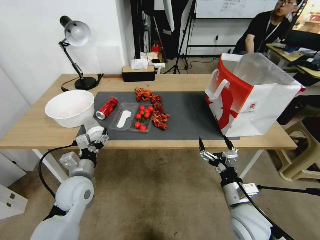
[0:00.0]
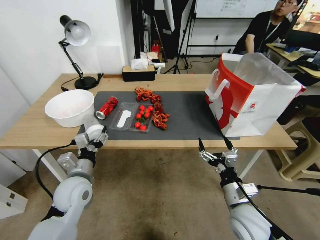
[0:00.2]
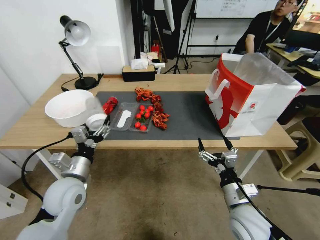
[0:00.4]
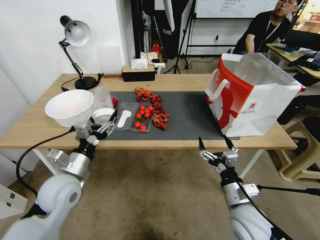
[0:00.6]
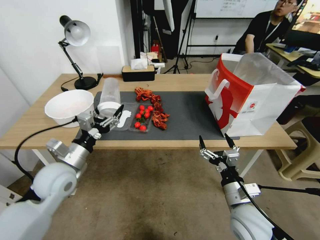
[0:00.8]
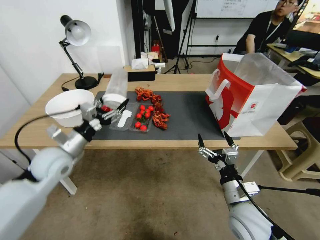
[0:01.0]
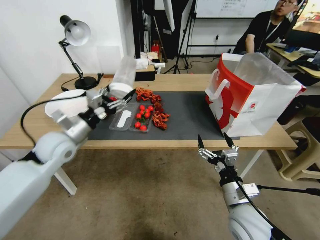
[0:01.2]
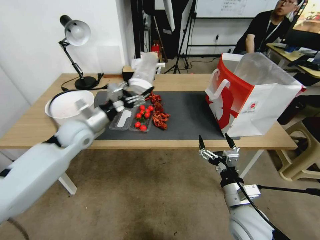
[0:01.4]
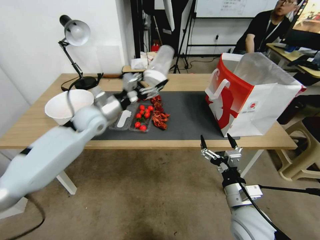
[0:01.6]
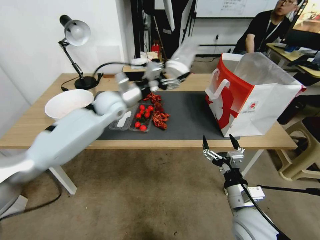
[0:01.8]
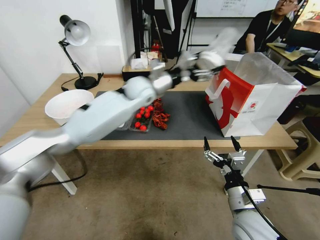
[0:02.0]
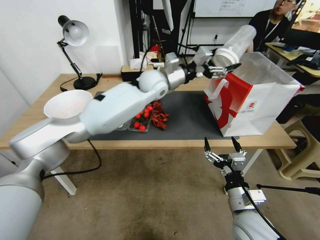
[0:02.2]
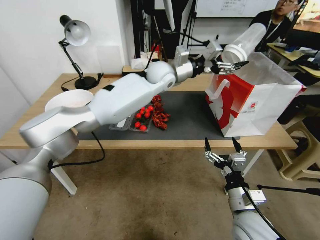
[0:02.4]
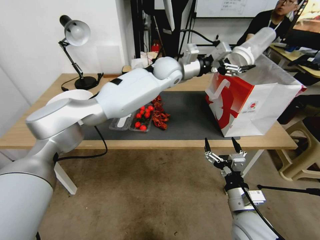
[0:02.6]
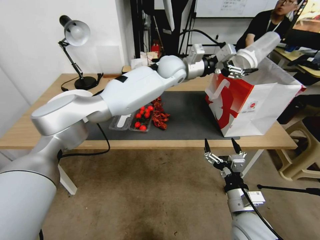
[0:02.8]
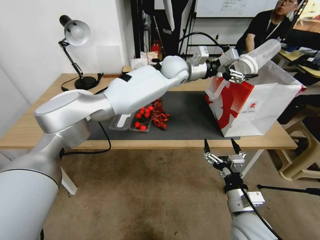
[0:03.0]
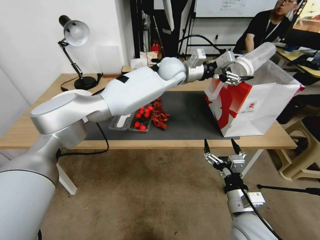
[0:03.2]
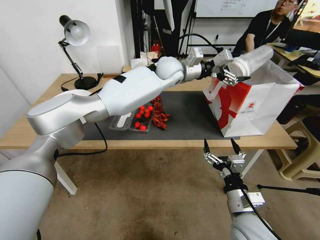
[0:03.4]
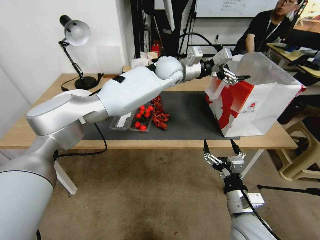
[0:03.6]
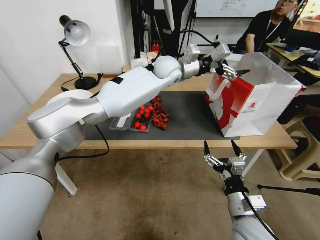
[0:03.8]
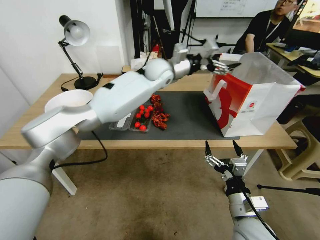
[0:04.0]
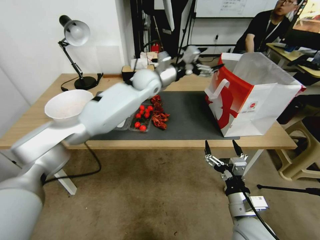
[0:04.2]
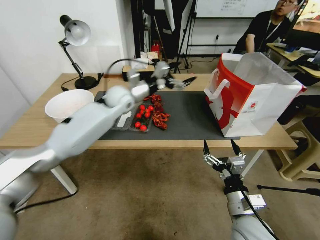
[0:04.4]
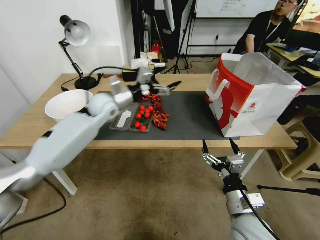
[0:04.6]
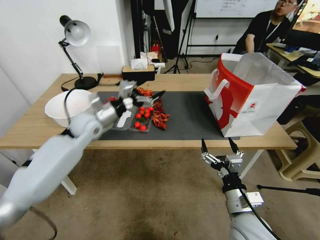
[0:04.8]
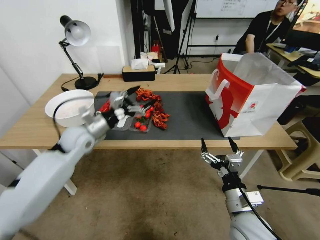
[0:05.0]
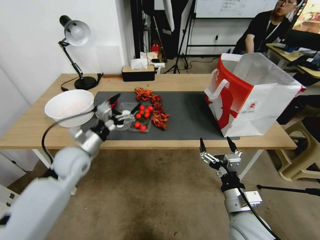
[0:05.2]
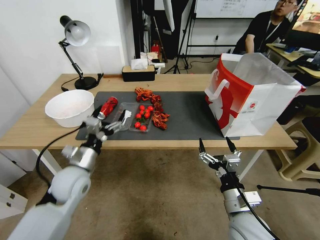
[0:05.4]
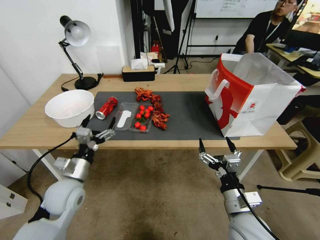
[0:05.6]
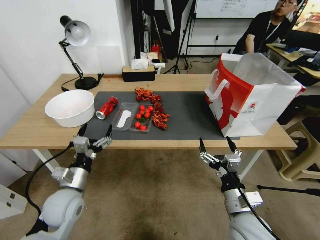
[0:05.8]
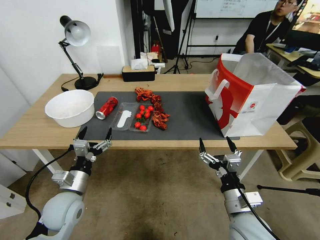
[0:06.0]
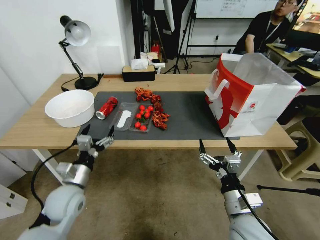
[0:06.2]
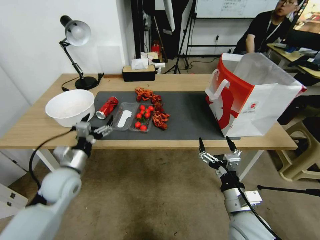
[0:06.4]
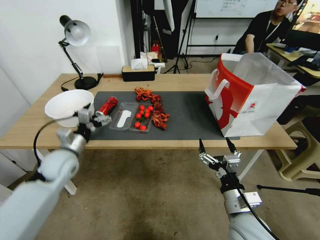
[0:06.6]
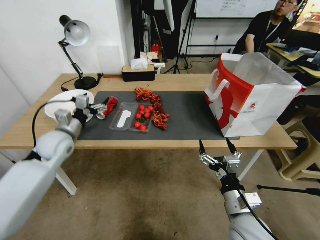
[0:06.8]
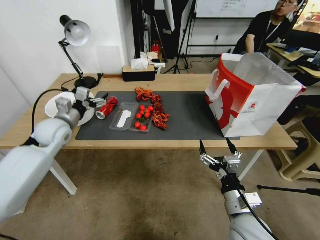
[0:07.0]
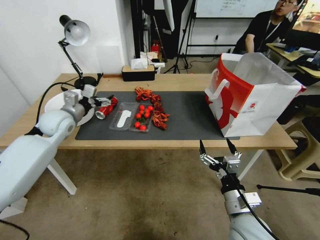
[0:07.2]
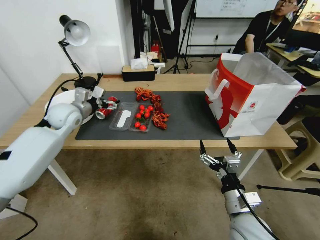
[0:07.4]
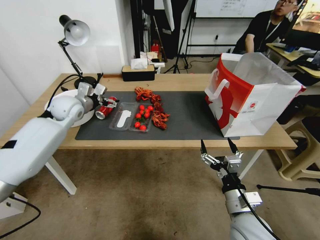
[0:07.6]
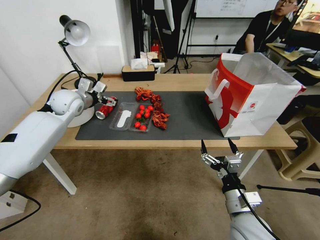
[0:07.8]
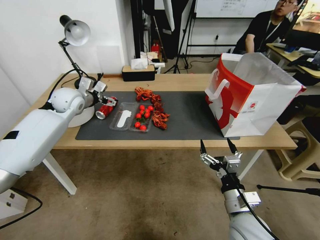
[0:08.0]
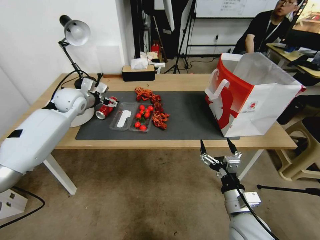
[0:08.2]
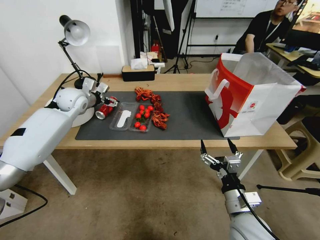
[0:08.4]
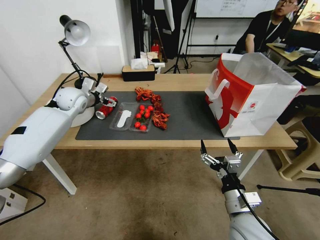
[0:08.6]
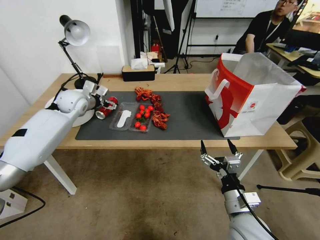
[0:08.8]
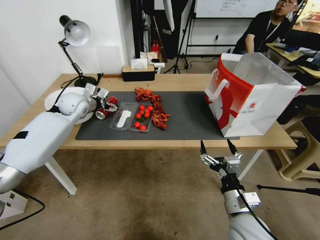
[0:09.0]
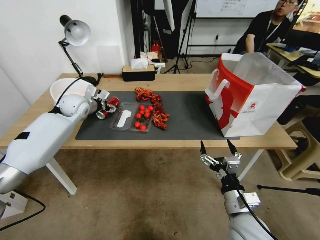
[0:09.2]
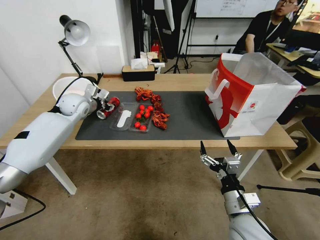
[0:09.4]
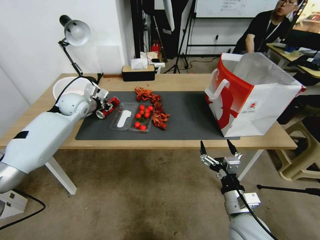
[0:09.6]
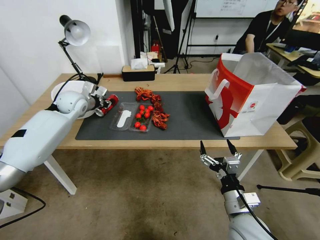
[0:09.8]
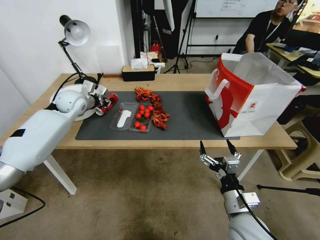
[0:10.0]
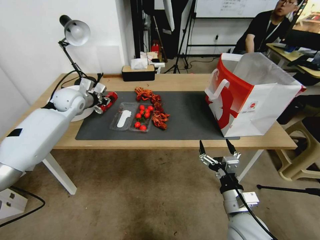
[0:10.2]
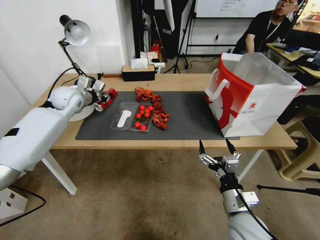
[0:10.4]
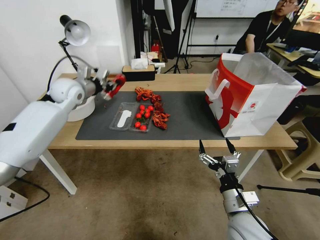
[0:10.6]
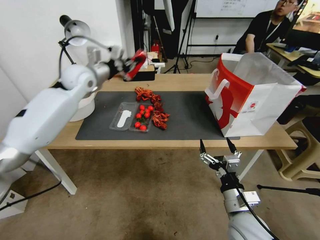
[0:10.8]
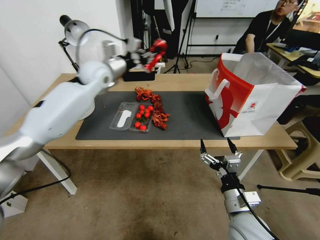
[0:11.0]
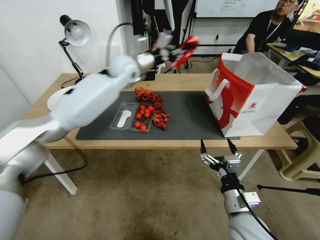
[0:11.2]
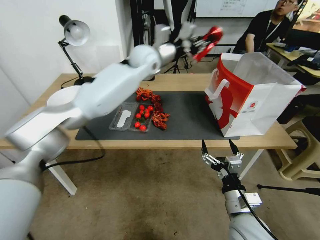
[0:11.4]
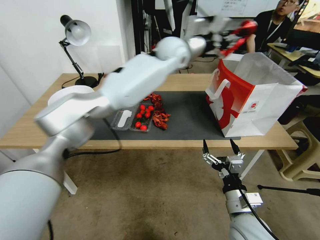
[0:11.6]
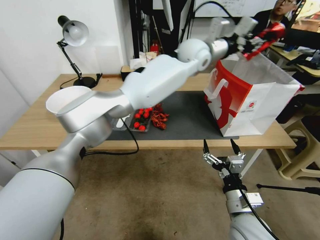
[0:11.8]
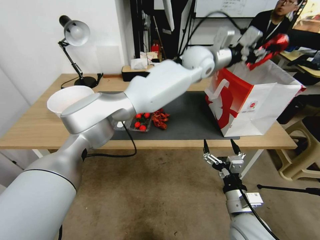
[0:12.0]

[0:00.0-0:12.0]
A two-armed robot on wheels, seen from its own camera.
0:00.0 to 0:01.6: The left gripper heads forward and upward, covering some 20 cm.
0:01.6 to 0:03.0: The left gripper is displaced to the right and forward by about 35 cm.
0:03.0 to 0:04.4: The left gripper shifts about 20 cm to the left and downward.
0:04.4 to 0:06.0: The left gripper is displaced backward, downward and to the left by roughly 40 cm.
0:06.0 to 0:07.6: The left gripper moves forward and upward, about 30 cm.
0:07.6 to 0:09.0: The grippers stay close to where they were, moving slightly.
0:09.0 to 0:10.4: The left gripper closes.
0:10.4 to 0:12.0: The left gripper is displaced to the right and upward by about 40 cm.

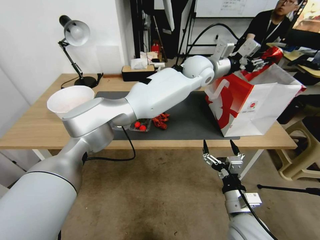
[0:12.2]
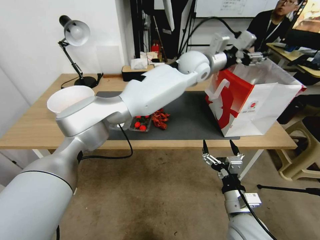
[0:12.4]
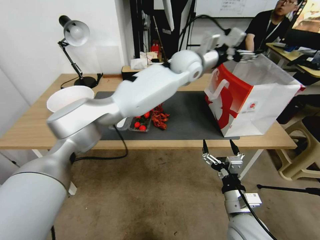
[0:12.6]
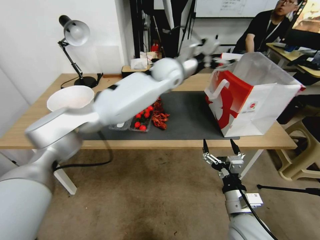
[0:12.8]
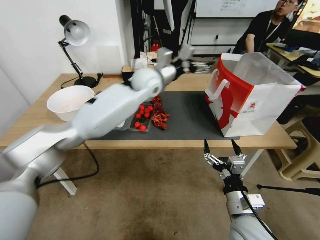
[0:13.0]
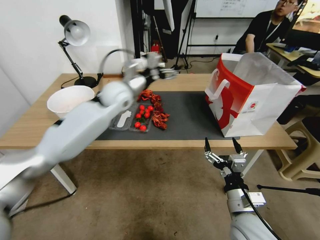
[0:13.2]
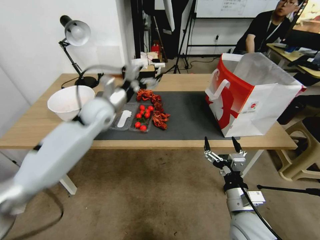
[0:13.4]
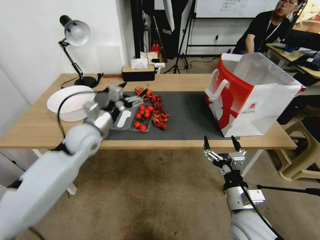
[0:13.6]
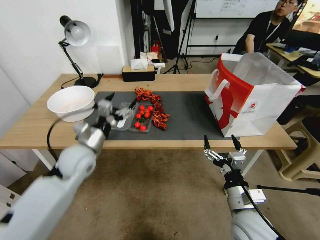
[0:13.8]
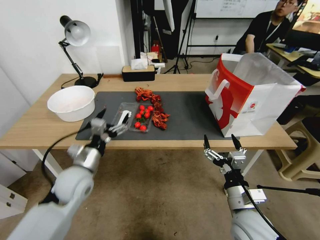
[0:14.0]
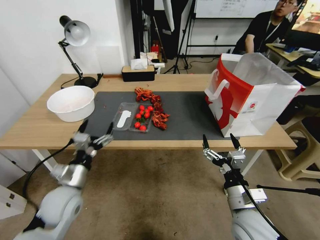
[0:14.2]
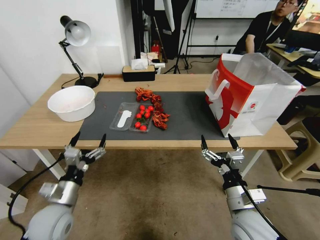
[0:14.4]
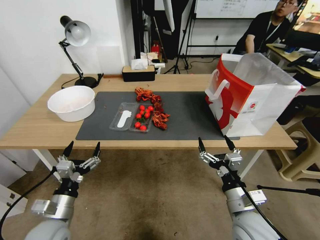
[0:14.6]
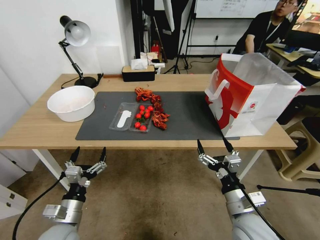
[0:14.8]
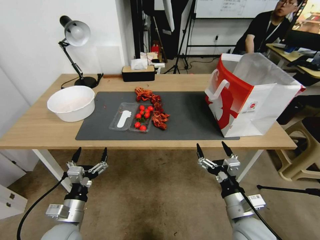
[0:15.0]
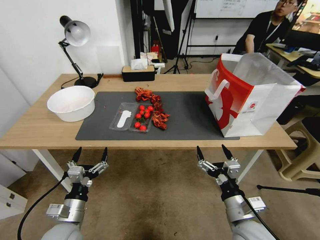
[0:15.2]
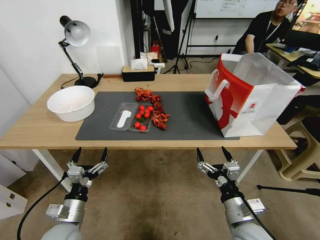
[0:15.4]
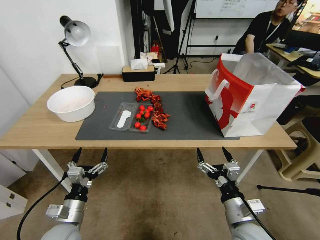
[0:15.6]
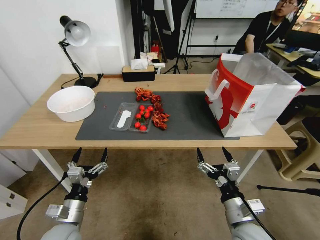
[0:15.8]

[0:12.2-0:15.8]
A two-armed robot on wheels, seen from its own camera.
0:12.2 to 0:14.0: The left gripper moves to the left, backward and downward, some 50 cm, and opens.
0:14.0 to 0:15.8: The left gripper moves backward and downward, roughly 15 cm.

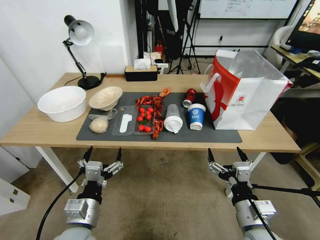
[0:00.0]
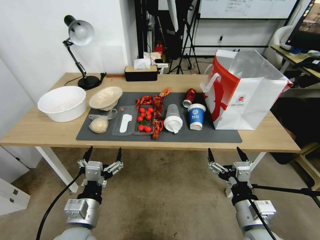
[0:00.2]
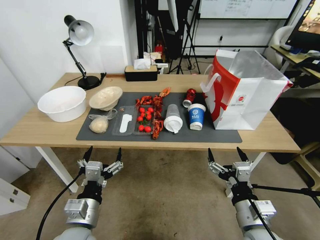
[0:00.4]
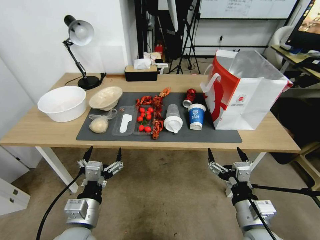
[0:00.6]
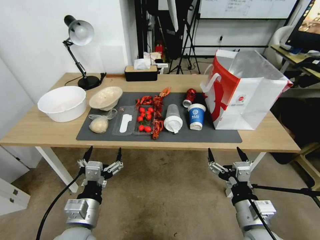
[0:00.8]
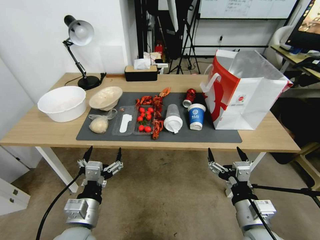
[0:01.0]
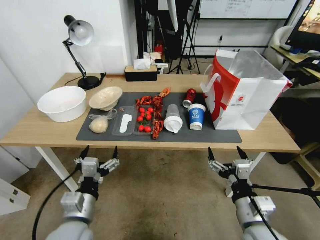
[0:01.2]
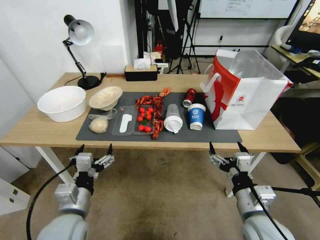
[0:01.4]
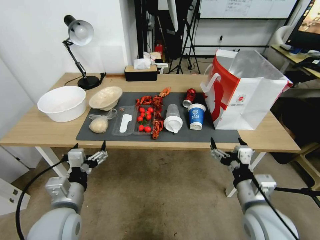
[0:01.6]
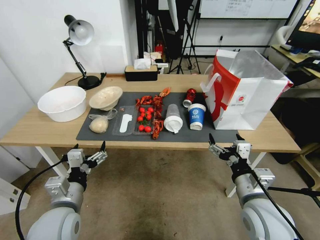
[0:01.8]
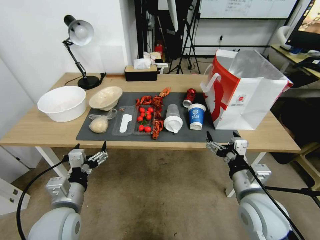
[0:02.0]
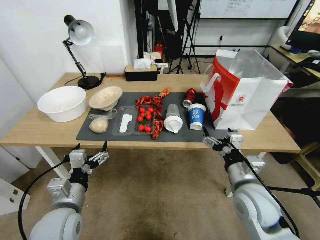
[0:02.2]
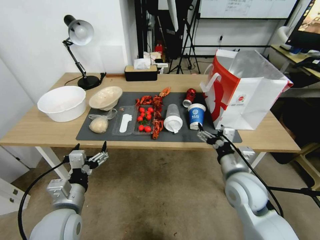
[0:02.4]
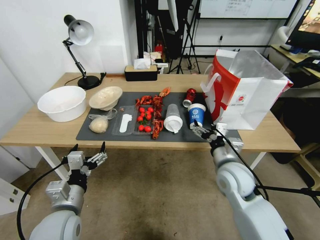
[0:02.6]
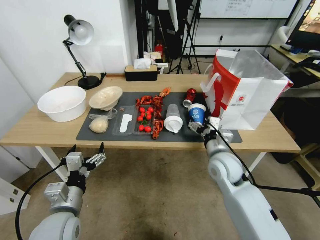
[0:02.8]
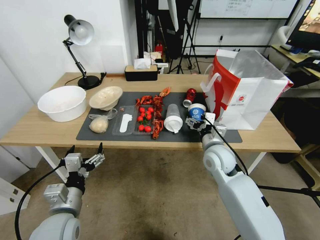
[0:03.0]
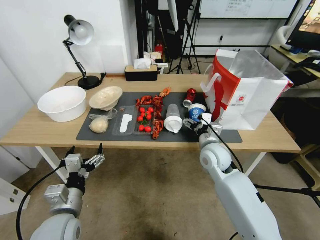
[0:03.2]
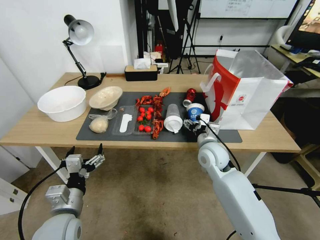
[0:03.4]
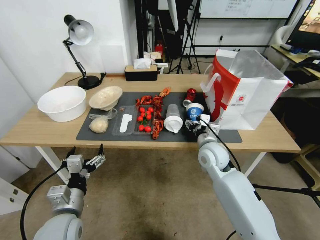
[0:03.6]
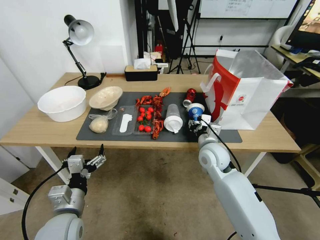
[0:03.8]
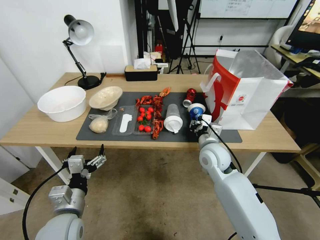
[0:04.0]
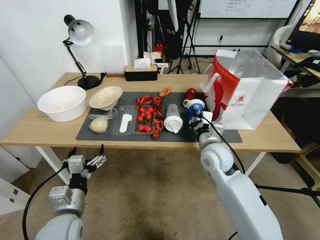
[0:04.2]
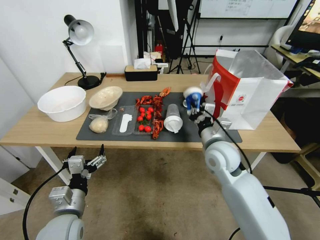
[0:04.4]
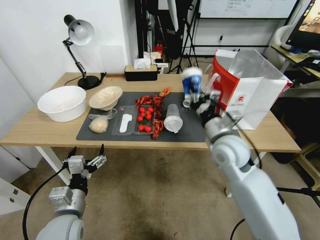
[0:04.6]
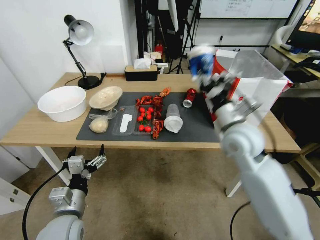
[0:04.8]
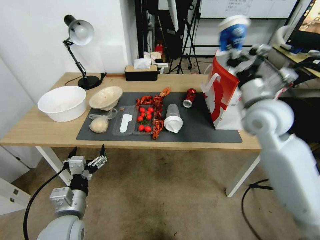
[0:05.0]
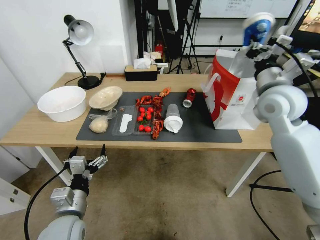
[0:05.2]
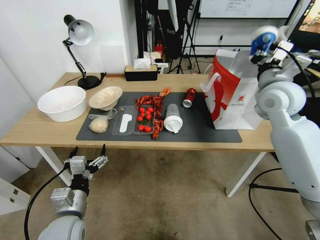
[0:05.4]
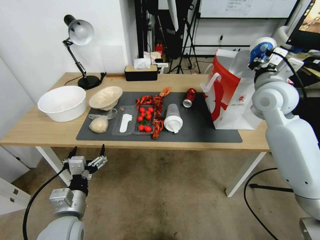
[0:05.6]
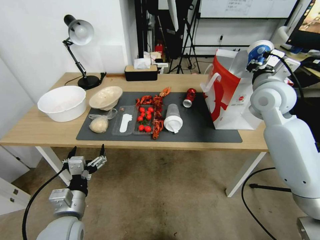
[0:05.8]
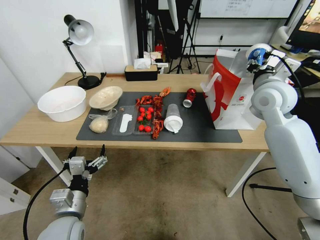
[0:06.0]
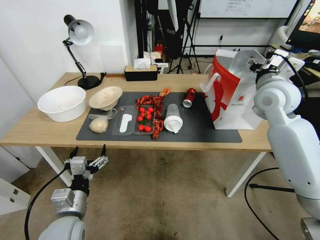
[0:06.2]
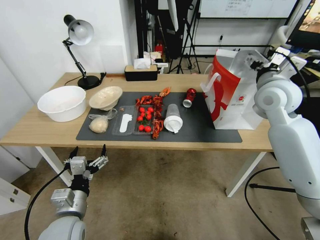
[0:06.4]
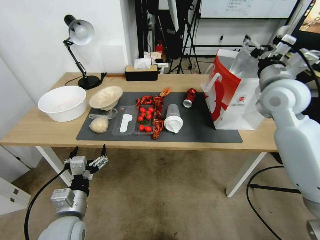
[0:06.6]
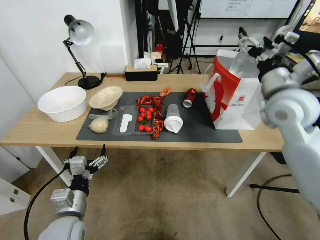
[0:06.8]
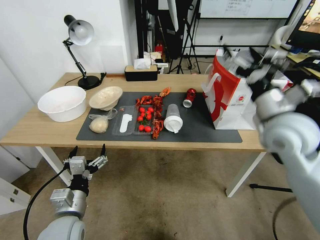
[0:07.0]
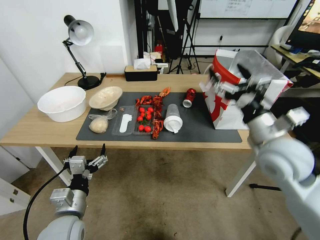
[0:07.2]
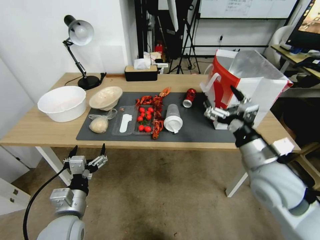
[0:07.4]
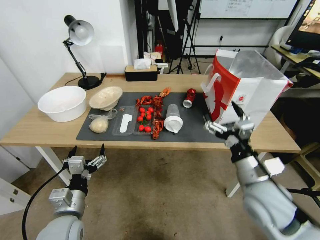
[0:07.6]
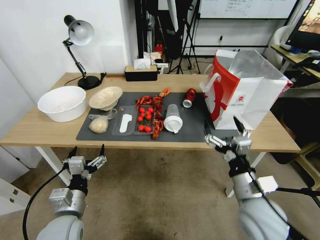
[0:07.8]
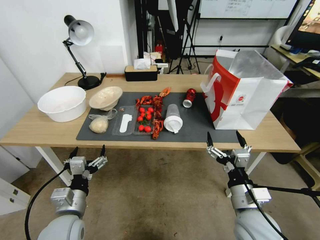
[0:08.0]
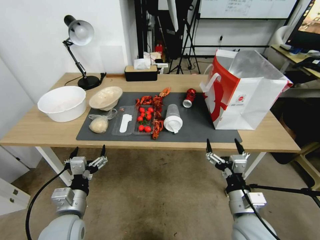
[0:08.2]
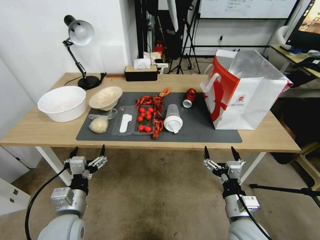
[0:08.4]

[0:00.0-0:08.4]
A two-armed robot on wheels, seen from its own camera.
0:01.4 to 0:02.8: The right gripper is displaced forward by approximately 15 cm.
0:02.8 to 0:04.2: The right gripper ends up some 5 cm from where it was, and closes.
0:04.2 to 0:05.6: The right gripper moves upward and to the right, approximately 25 cm.
0:05.6 to 0:07.0: The right gripper heads backward, covering approximately 10 cm, and opens its fingers.
0:07.0 to 0:08.4: The right gripper is displaced downward and backward by some 30 cm.
